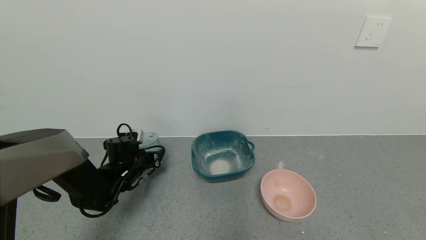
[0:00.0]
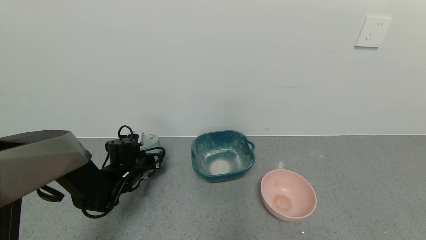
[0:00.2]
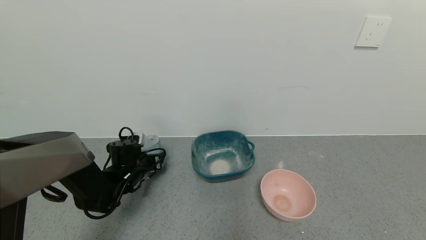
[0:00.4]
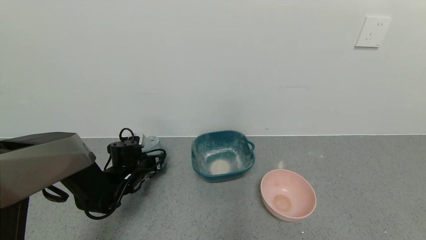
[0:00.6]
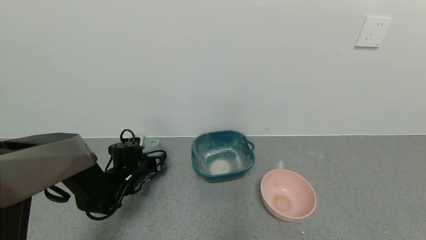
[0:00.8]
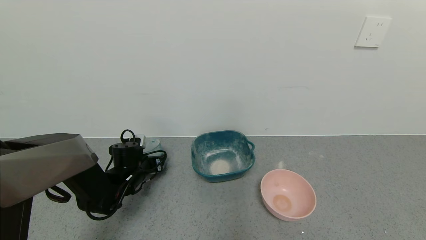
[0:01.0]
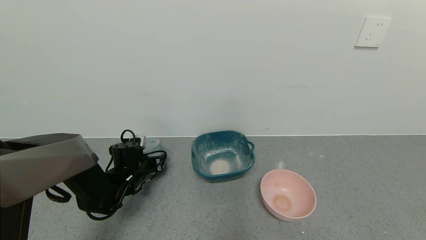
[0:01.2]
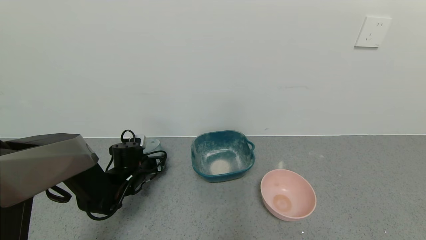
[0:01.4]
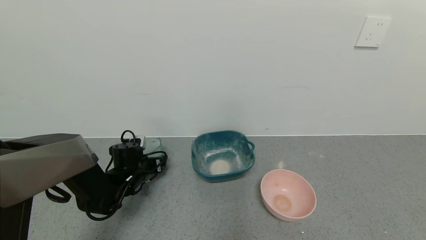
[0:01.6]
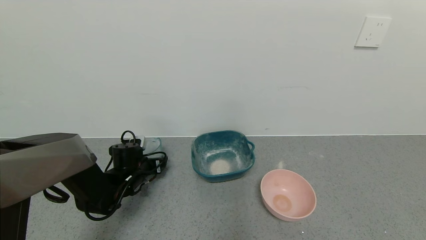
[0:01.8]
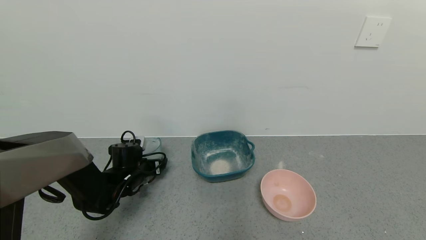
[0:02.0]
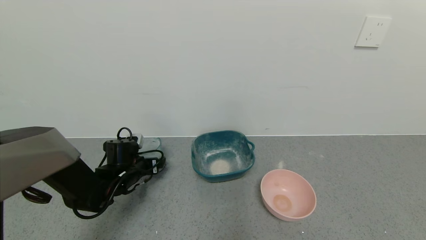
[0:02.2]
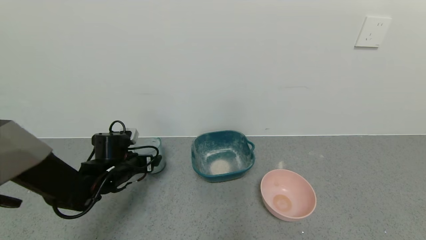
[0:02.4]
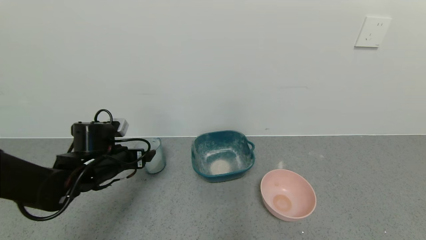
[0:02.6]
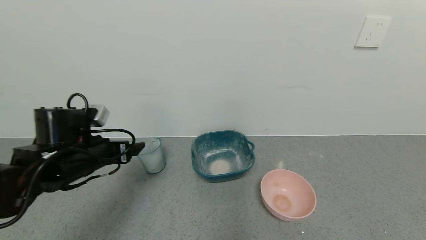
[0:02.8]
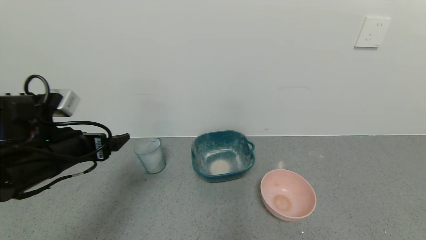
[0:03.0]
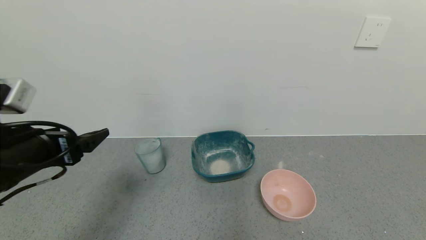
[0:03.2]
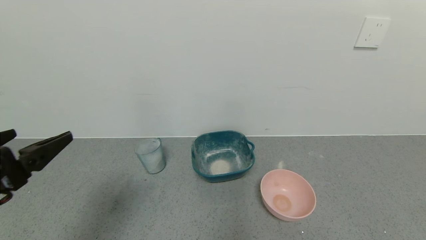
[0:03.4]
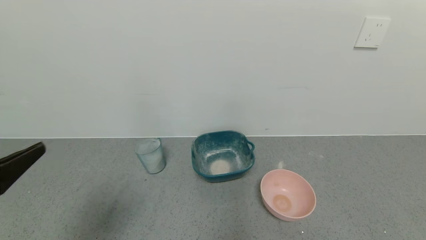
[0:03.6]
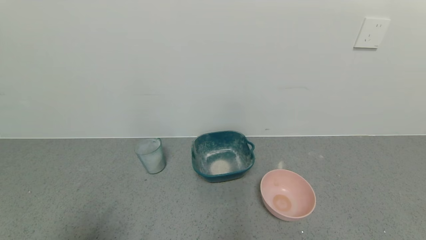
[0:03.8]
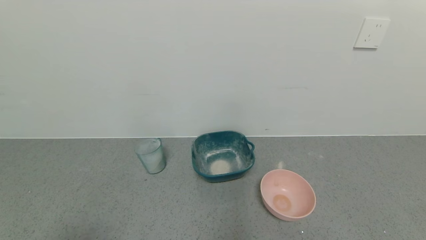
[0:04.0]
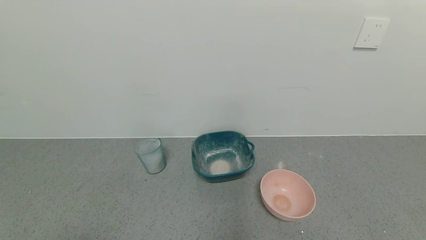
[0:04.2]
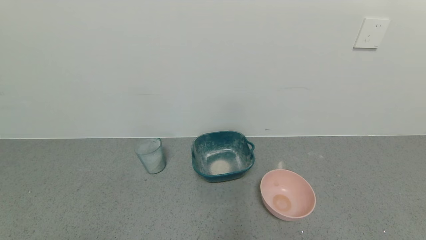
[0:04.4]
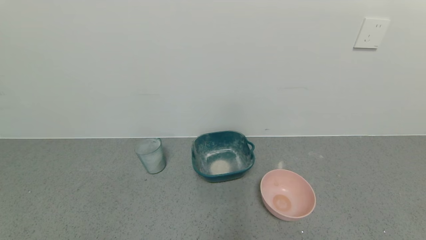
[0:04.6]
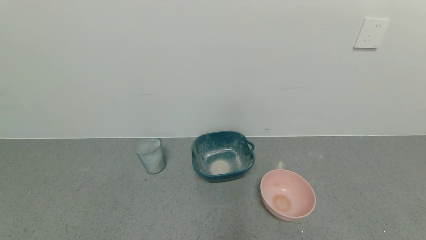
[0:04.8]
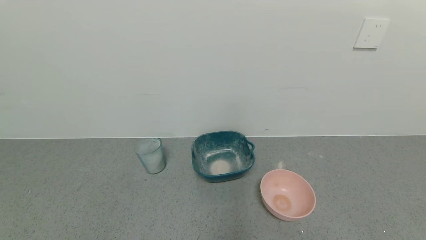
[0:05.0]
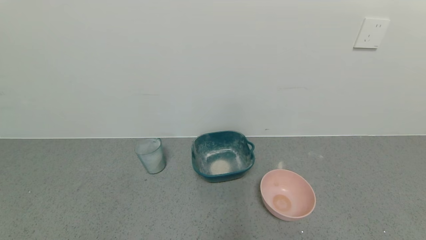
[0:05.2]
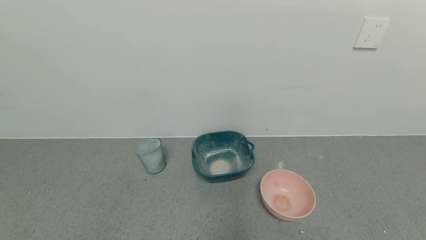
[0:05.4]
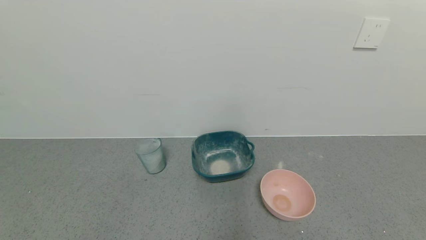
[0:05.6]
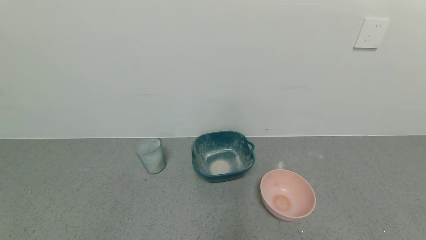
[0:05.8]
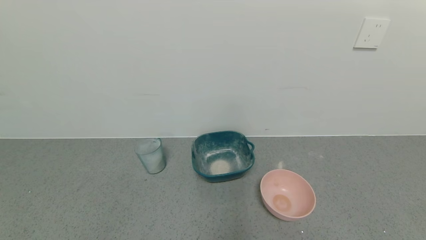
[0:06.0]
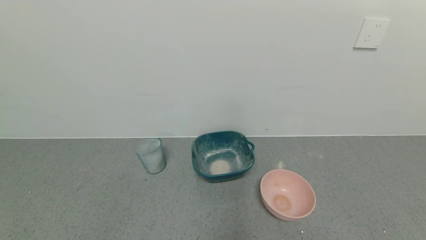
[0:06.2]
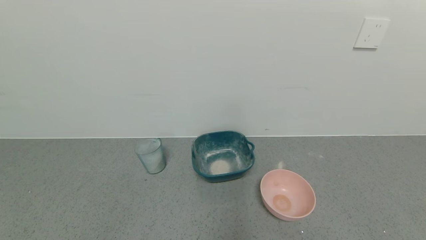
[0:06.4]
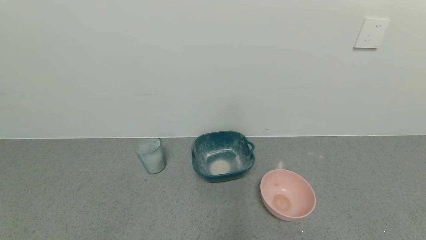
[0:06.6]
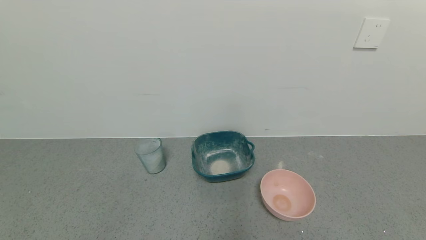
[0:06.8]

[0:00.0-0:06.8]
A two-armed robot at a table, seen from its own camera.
Task of the whole recording: use a gripper to pick up the cup and pour the powder into a bowl or tray.
0:00.0 to 0:01.4: The grippers stay close to where they were, moving slightly.
0:01.4 to 0:02.8: The left gripper goes approximately 20 cm upward and backward, and opens up.
0:02.8 to 0:04.0: The left gripper heads backward, covering some 30 cm.
